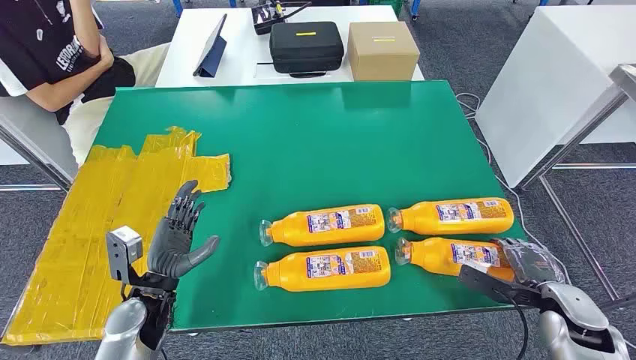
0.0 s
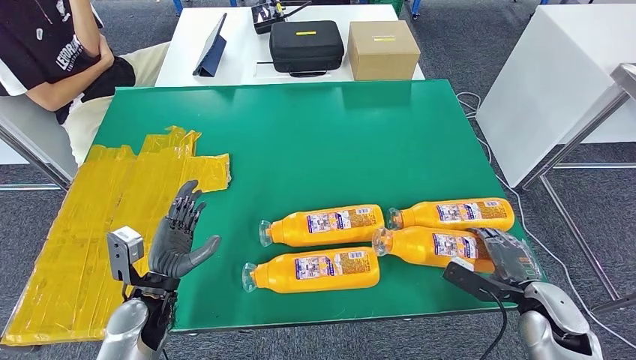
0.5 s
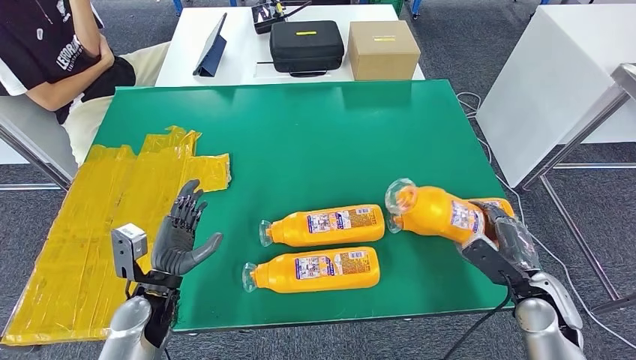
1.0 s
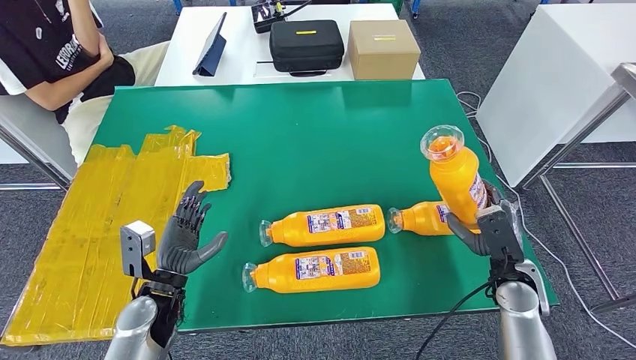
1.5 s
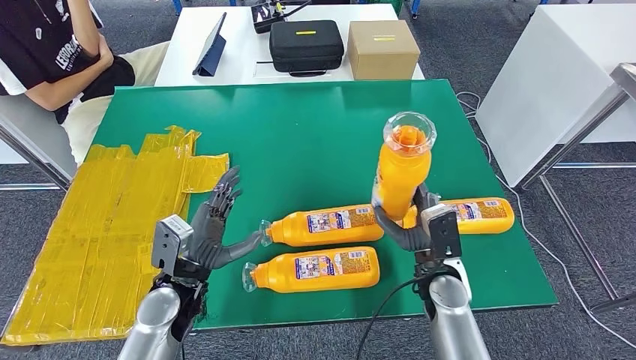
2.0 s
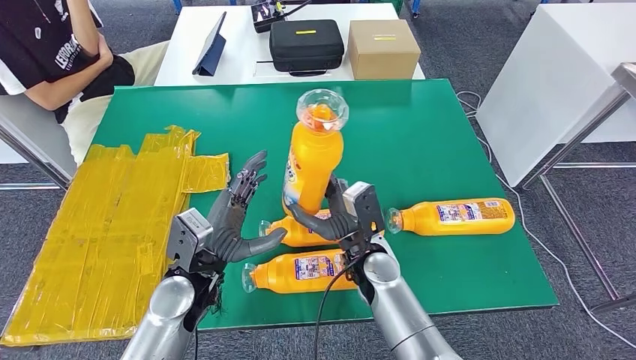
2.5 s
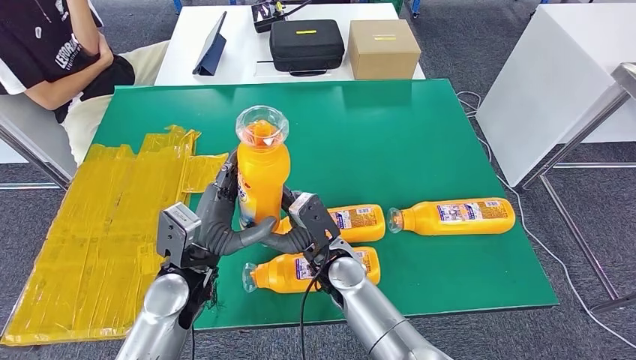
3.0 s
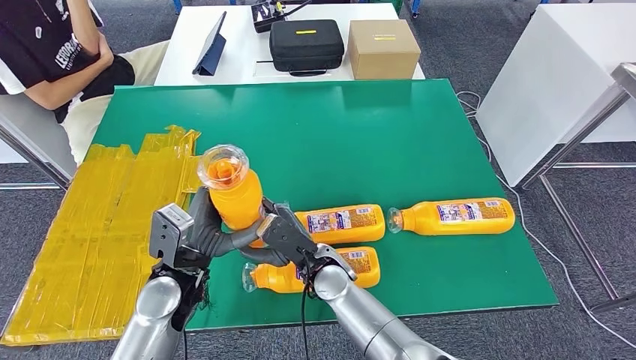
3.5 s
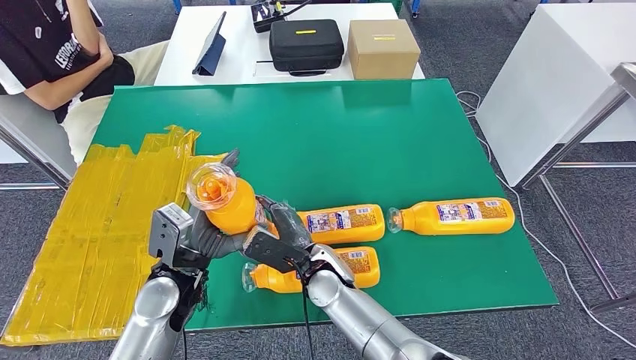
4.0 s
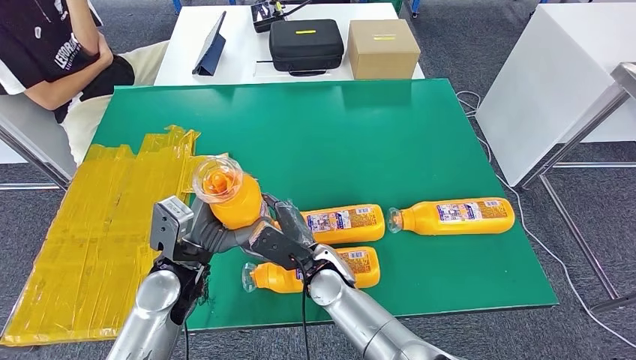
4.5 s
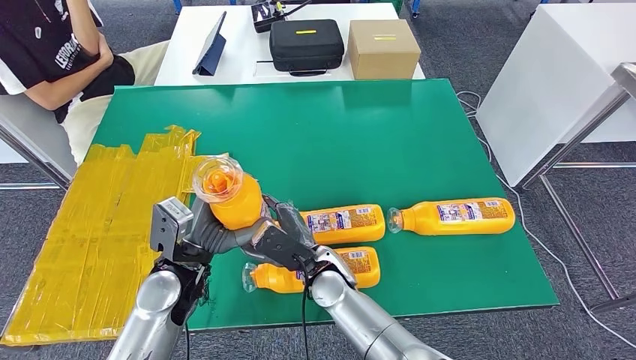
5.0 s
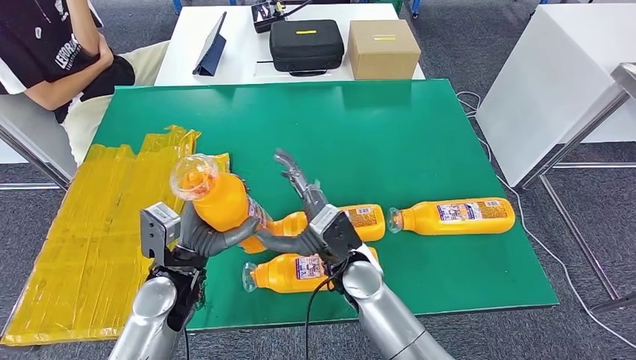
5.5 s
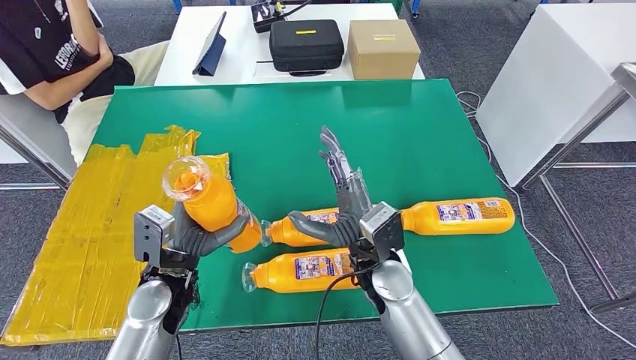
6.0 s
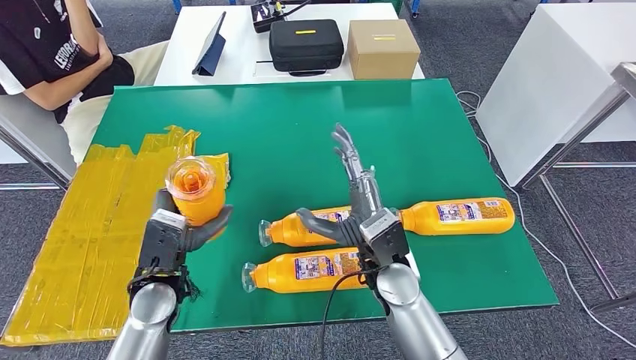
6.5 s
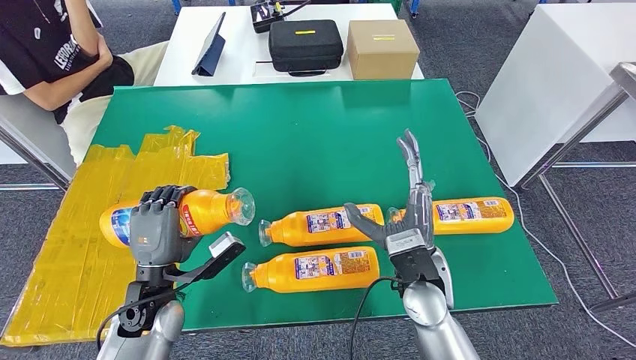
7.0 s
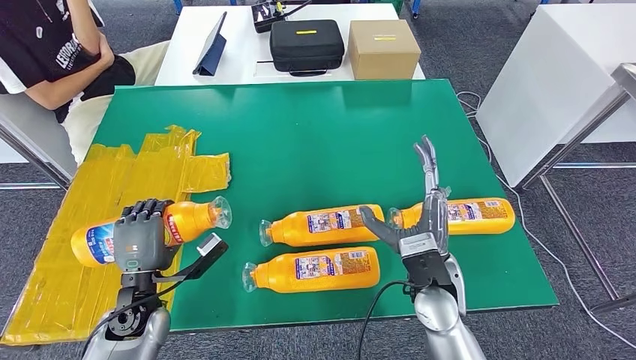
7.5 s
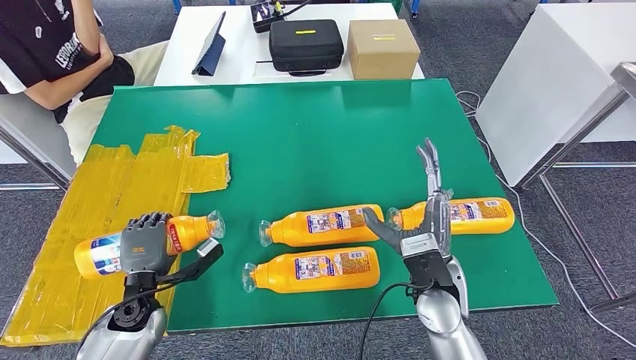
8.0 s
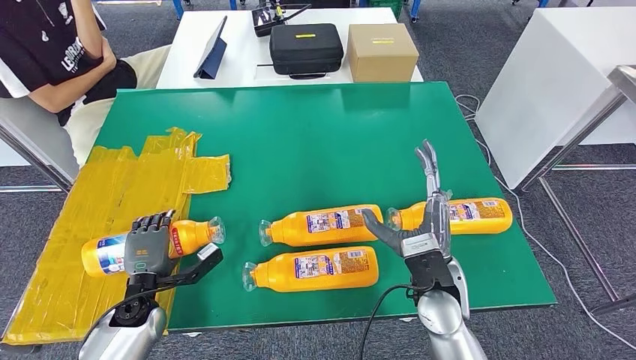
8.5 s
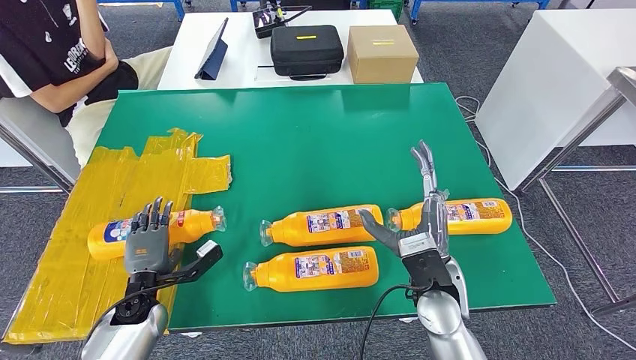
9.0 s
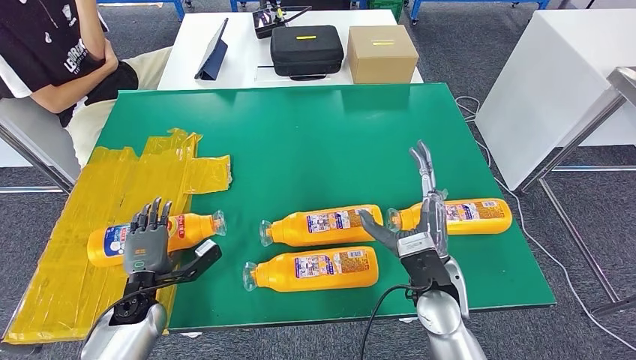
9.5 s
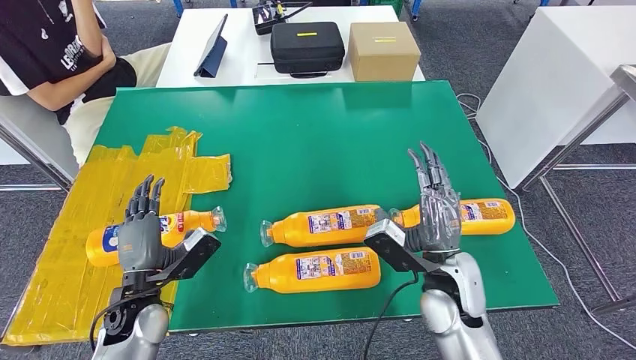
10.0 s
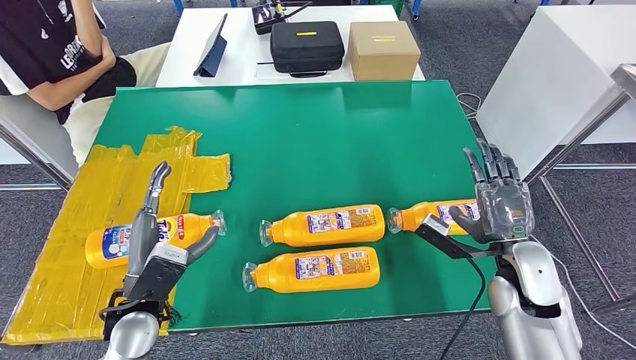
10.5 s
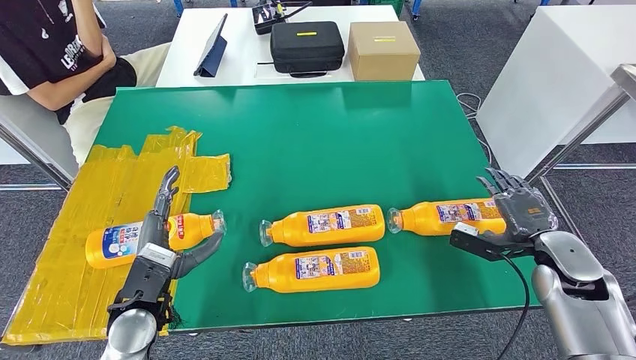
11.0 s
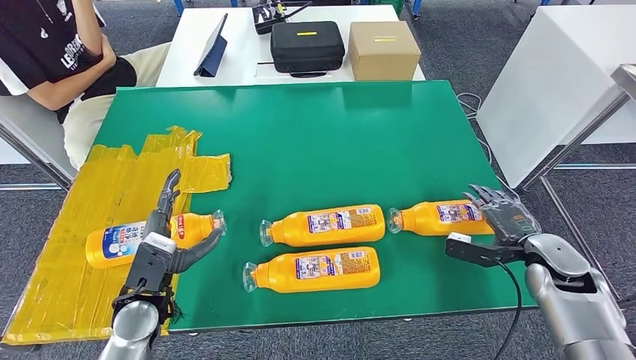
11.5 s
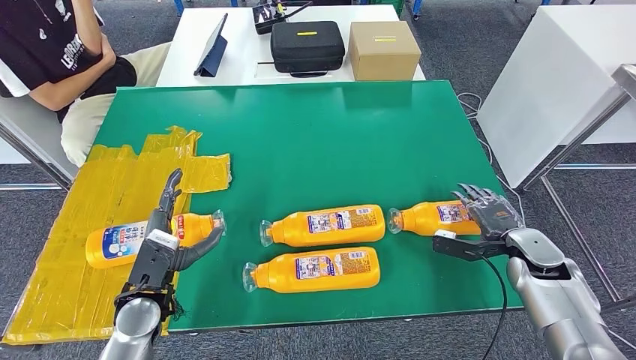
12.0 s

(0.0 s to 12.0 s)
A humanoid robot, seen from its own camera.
Step, 0.0 s - 2.0 s: Take the bottle from the table.
Step, 2.5 s - 9.5 s: Flip the bottle to face forward.
2.0 s - 4.0 s: The right hand heads to the left, covering about 20 cm.
4.0 s - 6.0 s: The right hand travels to the right and upward by approximately 10 cm.
6.0 s - 8.0 s: The right hand goes about 10 cm to the right; the left hand heads downward and to the left, covering approximately 10 cm.
8.0 s - 10.0 s: The left hand moves approximately 5 cm.
10.0 s - 12.0 s: The right hand heads to the right, covering roughly 20 cm.

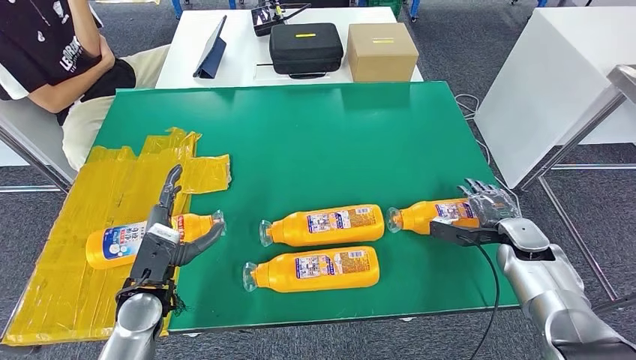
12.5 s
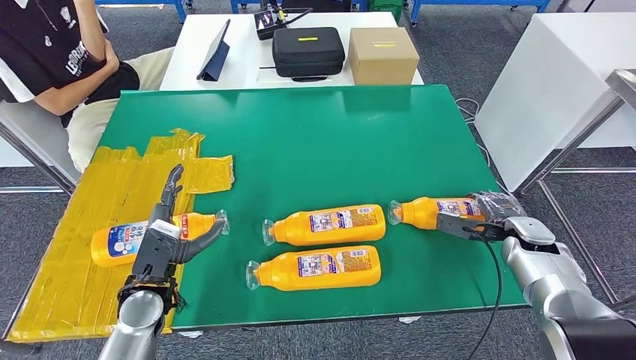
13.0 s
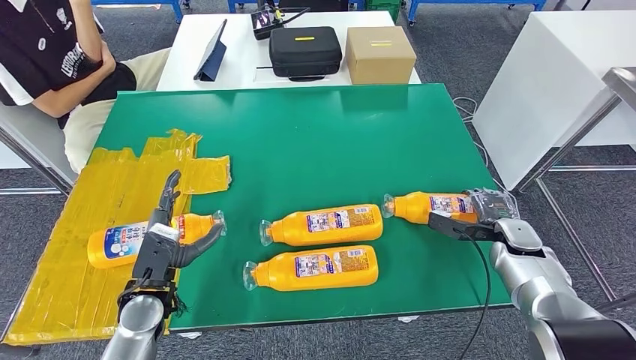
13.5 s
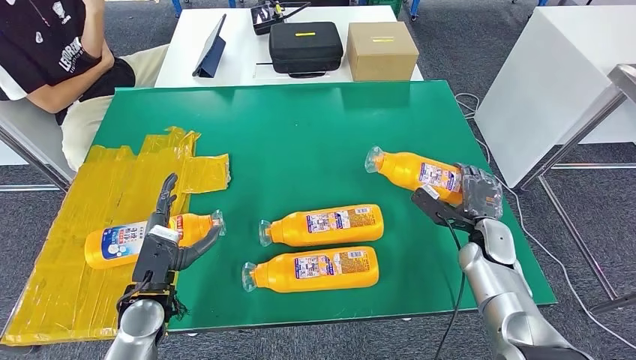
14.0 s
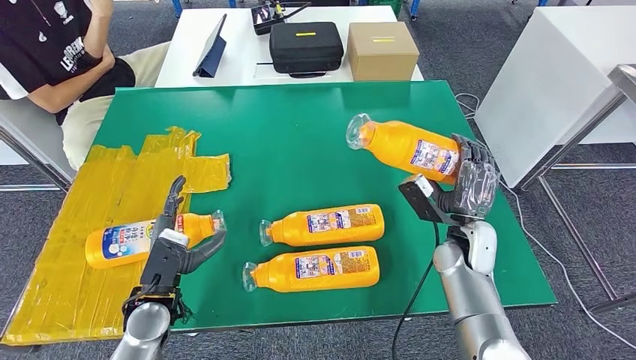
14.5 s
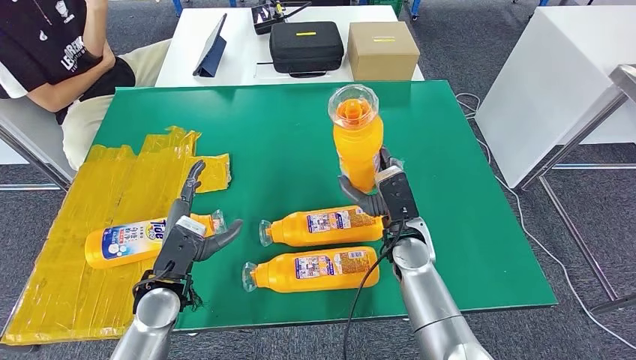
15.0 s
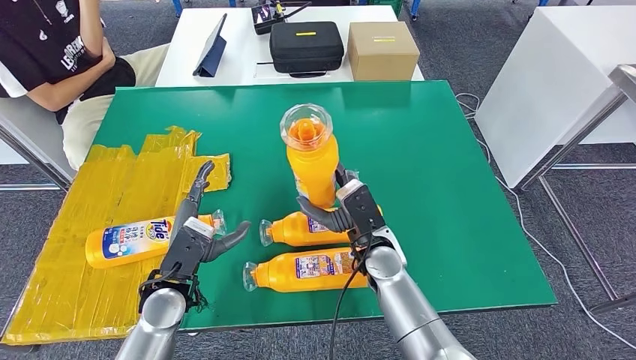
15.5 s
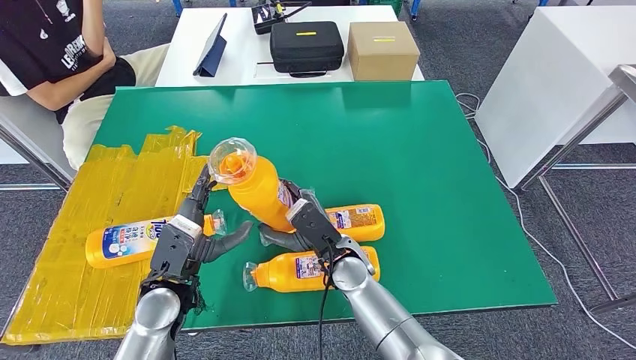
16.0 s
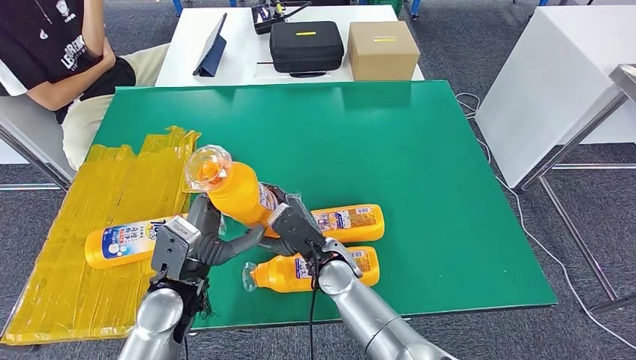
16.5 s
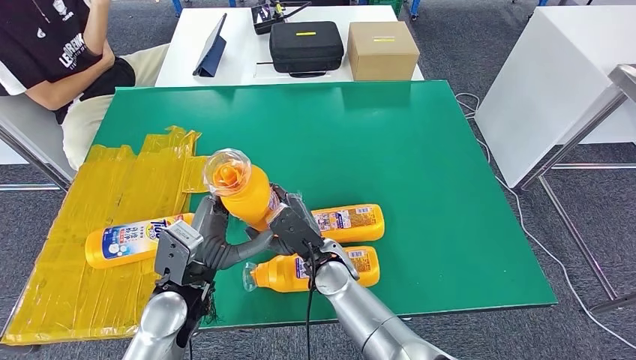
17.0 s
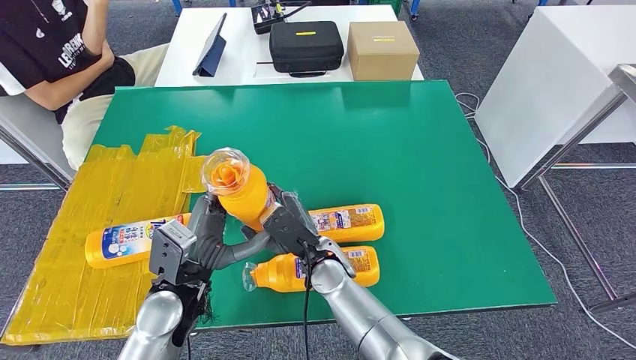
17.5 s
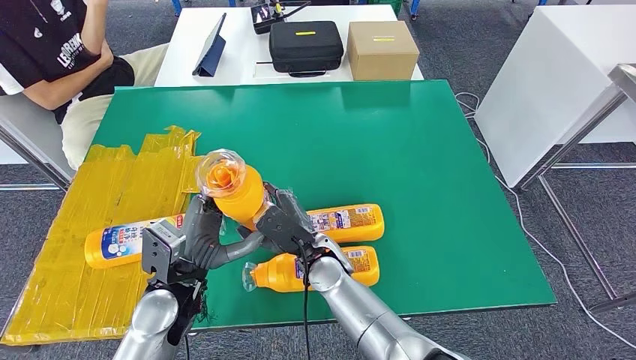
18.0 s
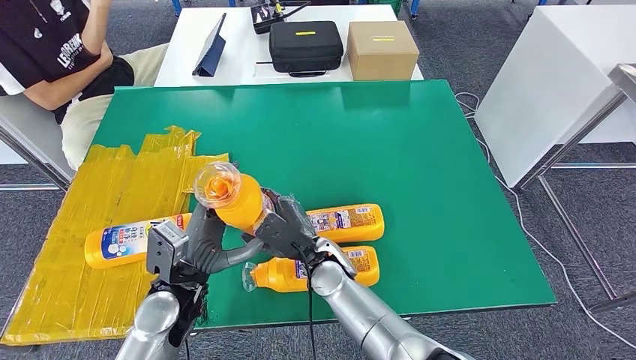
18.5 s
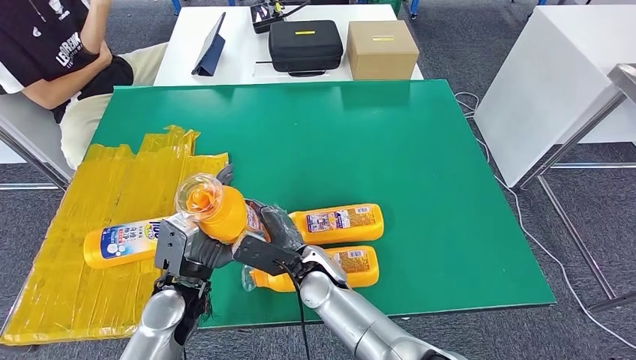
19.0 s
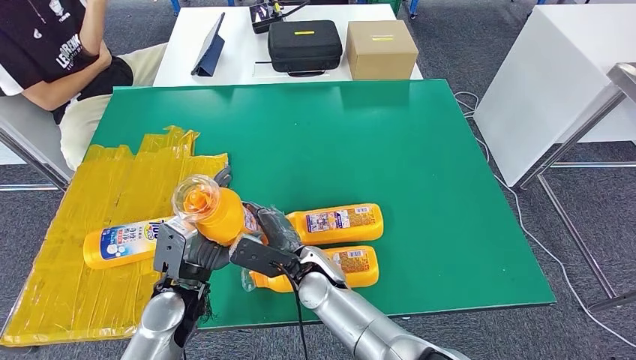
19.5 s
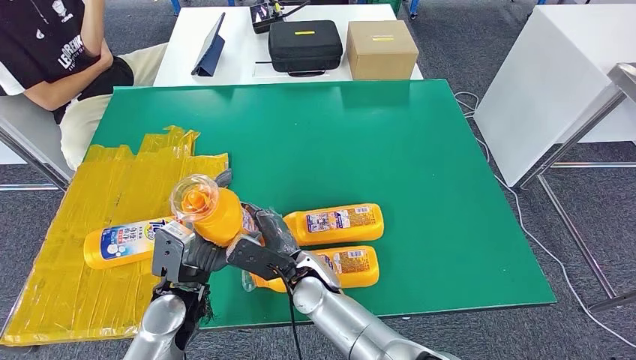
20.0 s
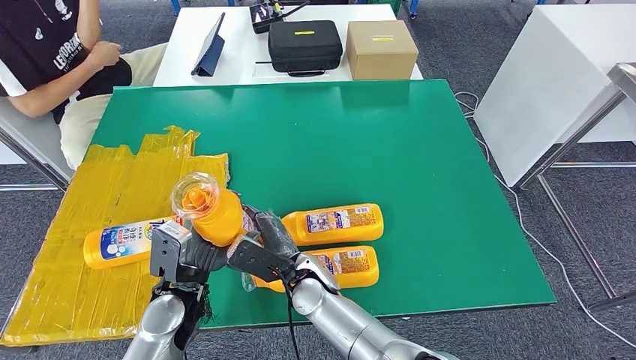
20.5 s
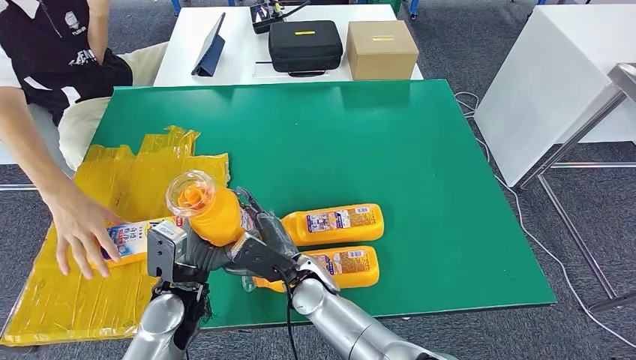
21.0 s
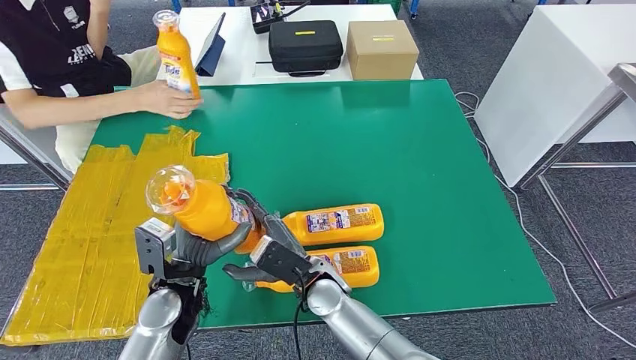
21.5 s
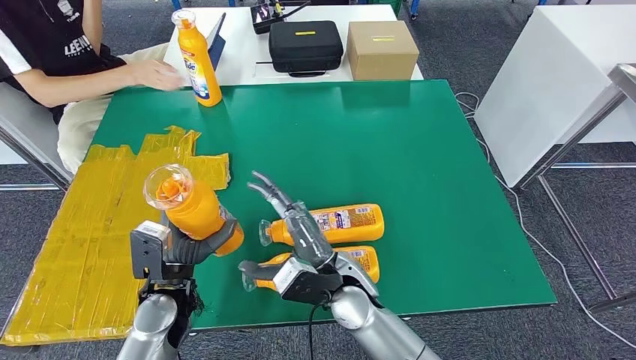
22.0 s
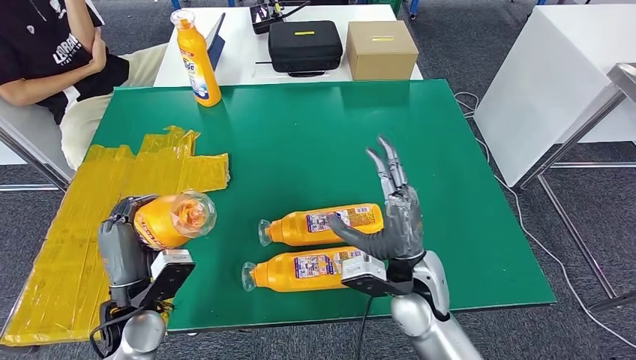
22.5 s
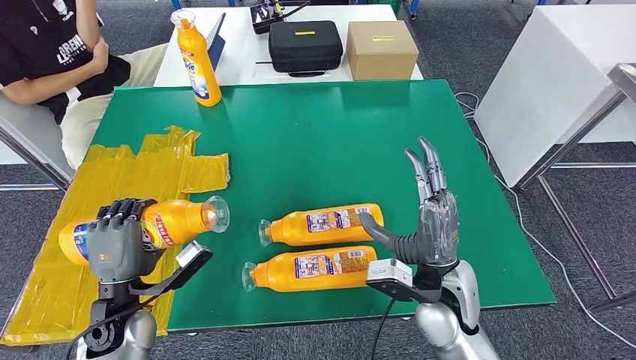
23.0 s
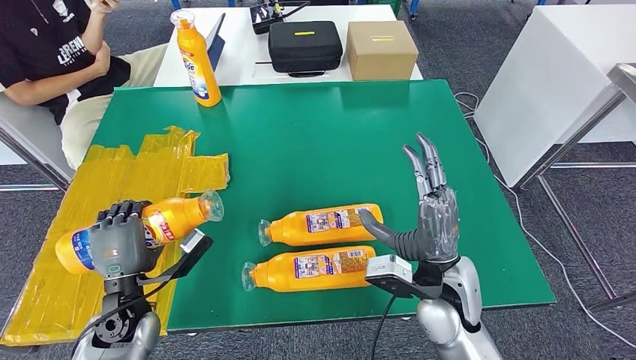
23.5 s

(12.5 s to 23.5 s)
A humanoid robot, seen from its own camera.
Step, 14.0 s - 19.0 s: Pick up the bottle from the table.
12.5 s - 14.5 s: The right hand shifts about 15 cm to the left.
14.5 s - 16.0 s: The right hand goes approximately 25 cm to the left, while the left hand changes place by roughly 5 cm.
16.0 s - 18.0 s: The hands move only a little.
18.0 s - 21.5 s: There are only small adjustments of the hands.
